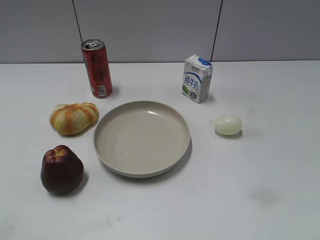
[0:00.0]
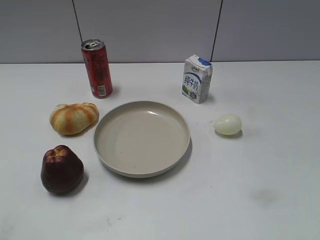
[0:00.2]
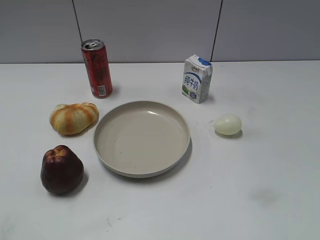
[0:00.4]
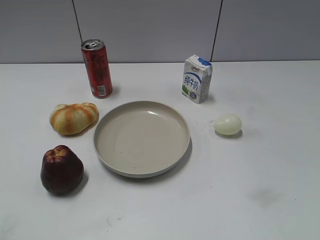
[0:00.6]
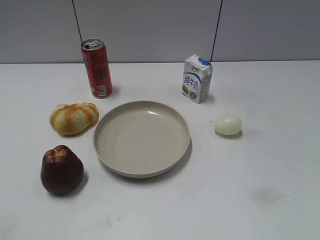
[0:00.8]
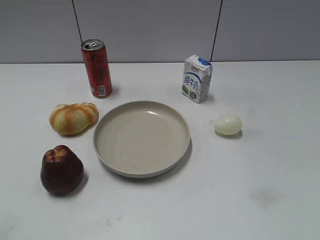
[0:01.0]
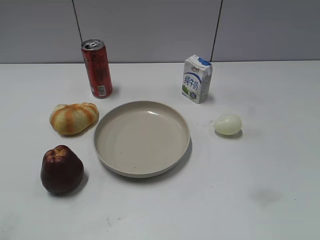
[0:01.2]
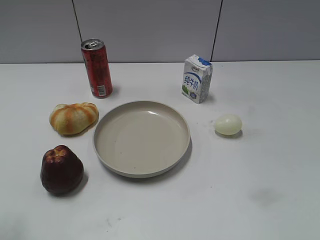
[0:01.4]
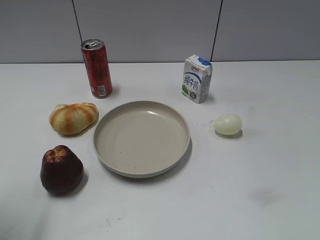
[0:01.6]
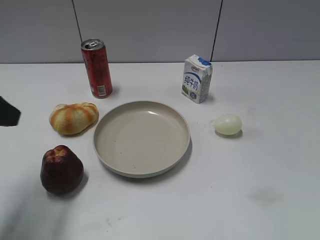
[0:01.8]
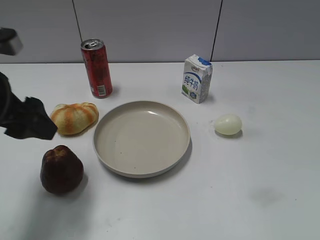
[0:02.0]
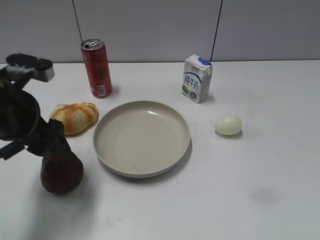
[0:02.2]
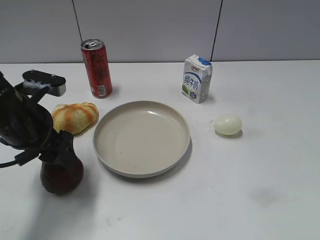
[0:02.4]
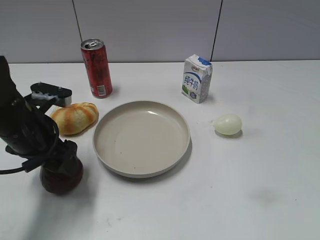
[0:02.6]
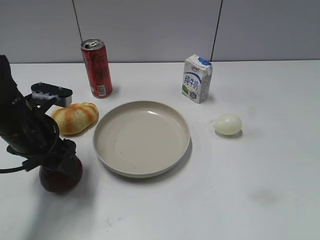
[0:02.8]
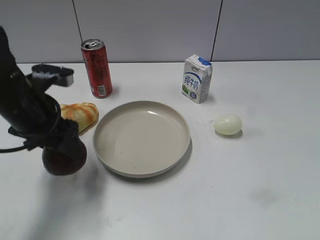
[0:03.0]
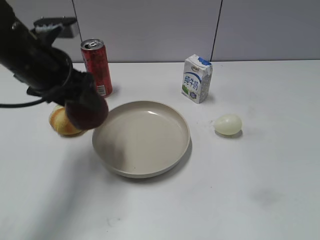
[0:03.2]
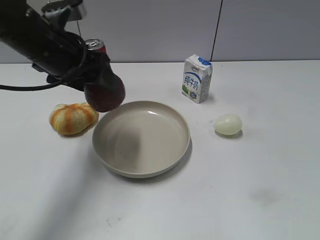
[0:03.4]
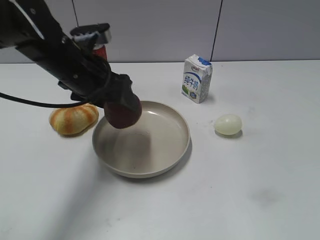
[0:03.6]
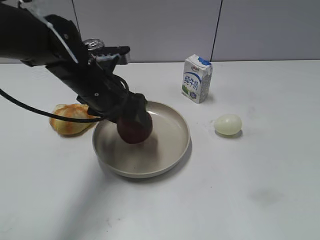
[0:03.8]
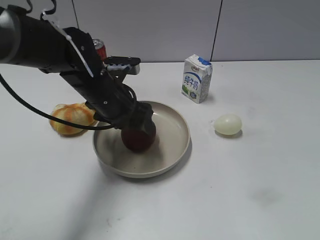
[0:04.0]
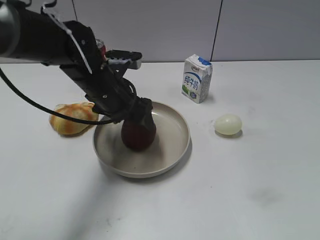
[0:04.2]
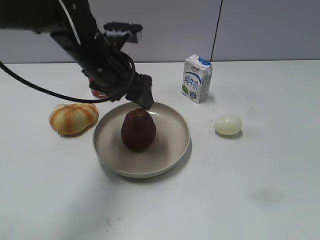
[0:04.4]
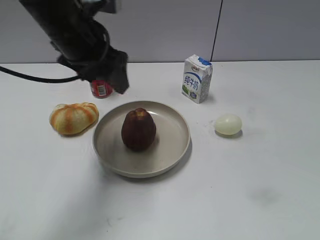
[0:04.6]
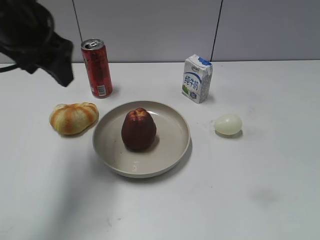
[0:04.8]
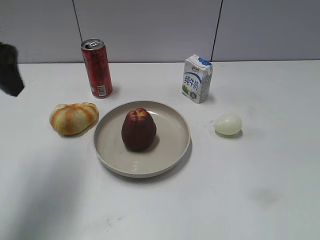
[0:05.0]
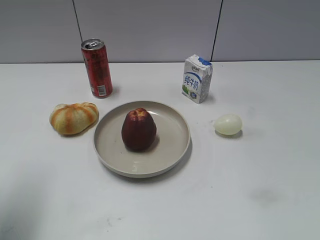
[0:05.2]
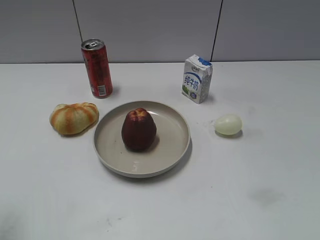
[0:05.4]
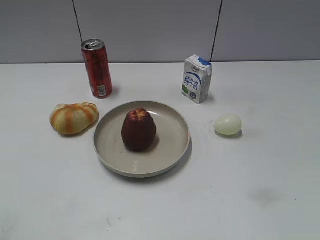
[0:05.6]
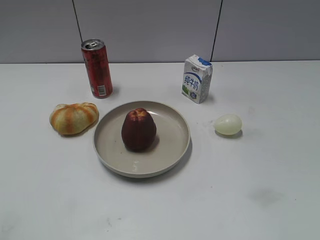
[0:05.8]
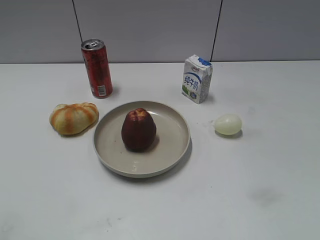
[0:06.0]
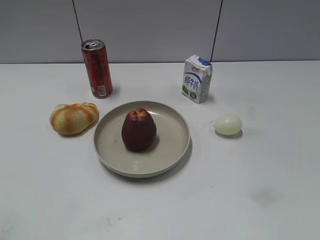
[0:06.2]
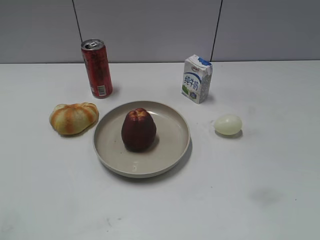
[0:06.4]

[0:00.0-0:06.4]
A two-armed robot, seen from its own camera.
Step, 0:01.0 to 0:02.6: Grasp the apple with left gripper.
Step, 0:03.0 to 0:04.4: Place the apple on the plate with left gripper.
0:01.6 to 0:03.2: The left gripper shifts about 20 cm forward and to the right, and closes its fingers.
0:03.2 to 0:04.8: The left gripper goes roughly 5 cm upward, and opens.
0:04.8 to 0:06.4: The left gripper is displaced backward and to the left by approximately 35 cm, and closes its fingers.
